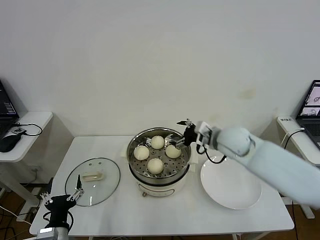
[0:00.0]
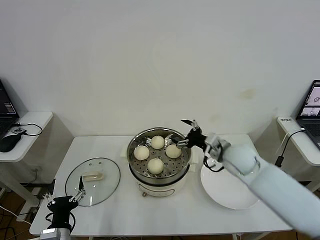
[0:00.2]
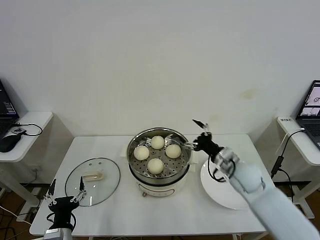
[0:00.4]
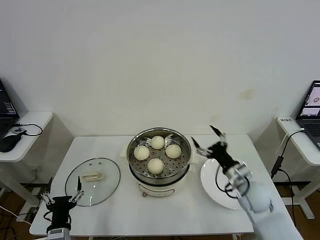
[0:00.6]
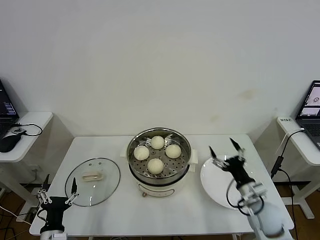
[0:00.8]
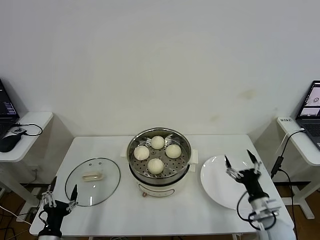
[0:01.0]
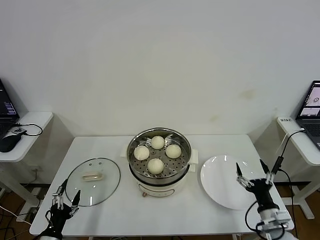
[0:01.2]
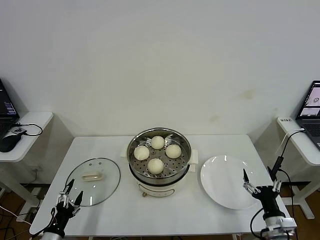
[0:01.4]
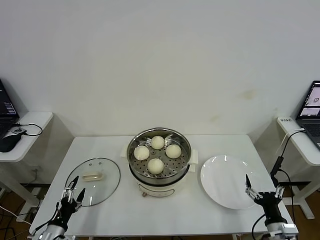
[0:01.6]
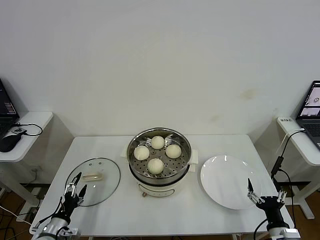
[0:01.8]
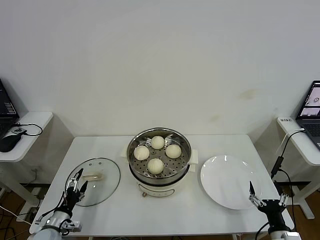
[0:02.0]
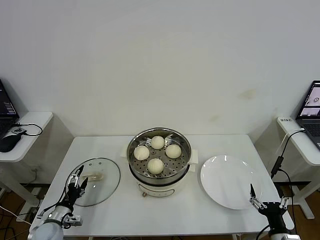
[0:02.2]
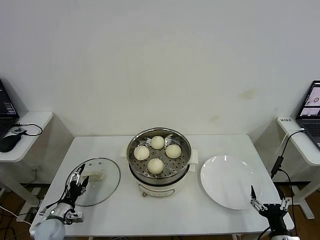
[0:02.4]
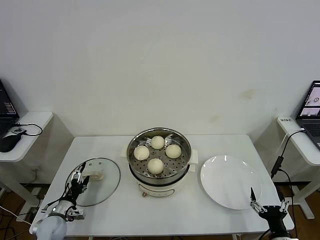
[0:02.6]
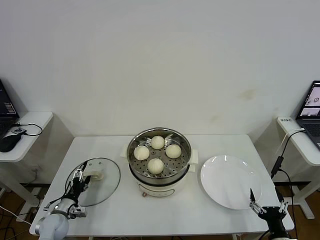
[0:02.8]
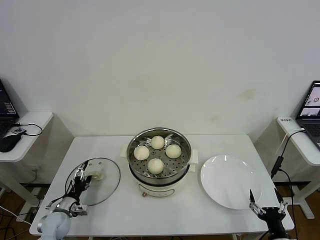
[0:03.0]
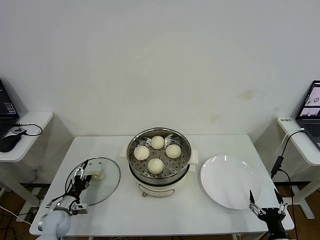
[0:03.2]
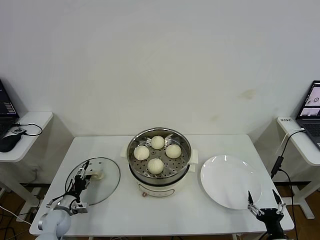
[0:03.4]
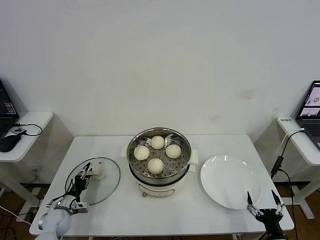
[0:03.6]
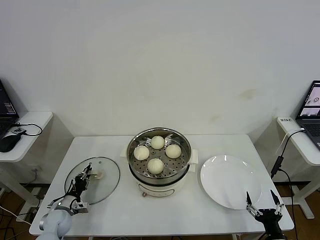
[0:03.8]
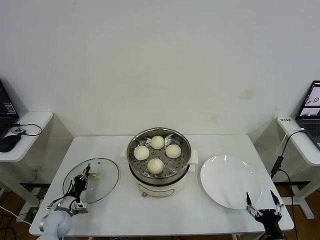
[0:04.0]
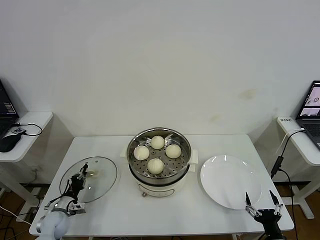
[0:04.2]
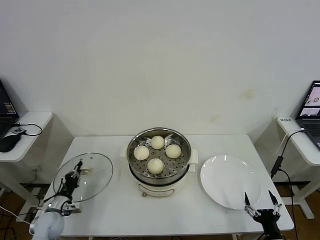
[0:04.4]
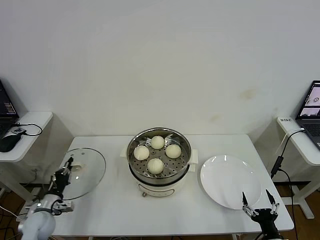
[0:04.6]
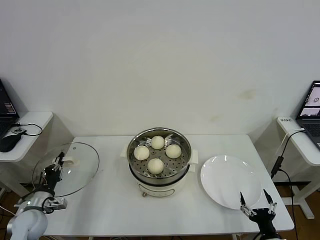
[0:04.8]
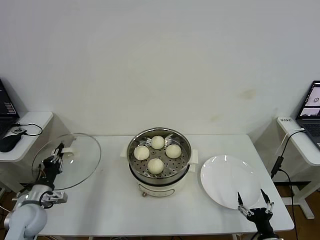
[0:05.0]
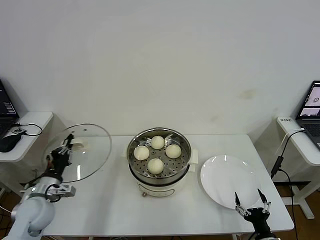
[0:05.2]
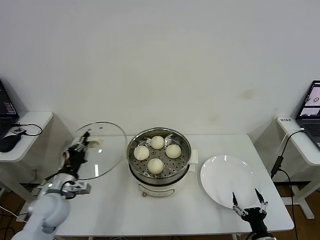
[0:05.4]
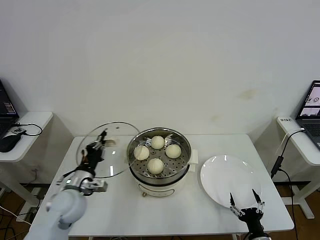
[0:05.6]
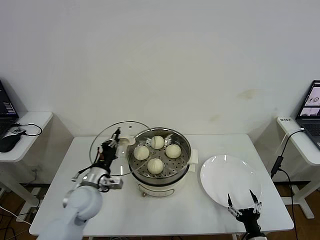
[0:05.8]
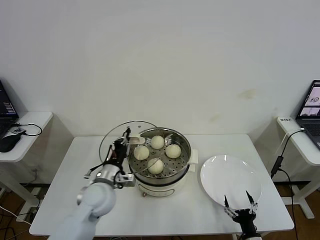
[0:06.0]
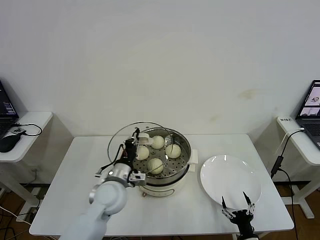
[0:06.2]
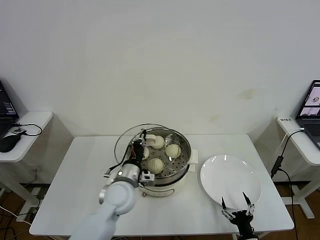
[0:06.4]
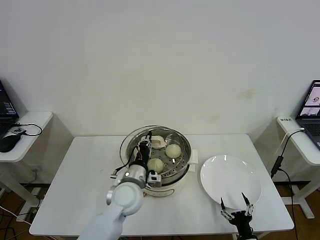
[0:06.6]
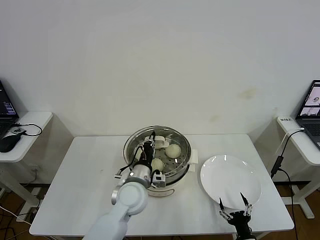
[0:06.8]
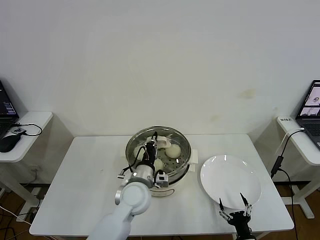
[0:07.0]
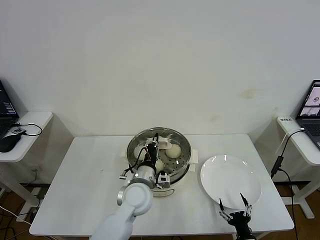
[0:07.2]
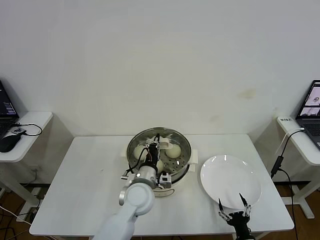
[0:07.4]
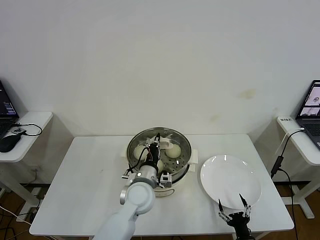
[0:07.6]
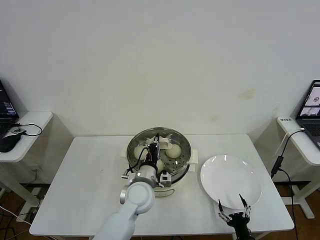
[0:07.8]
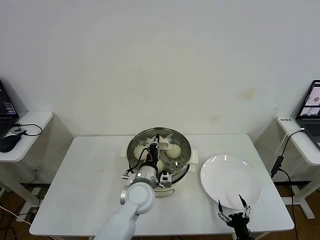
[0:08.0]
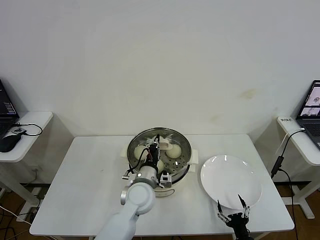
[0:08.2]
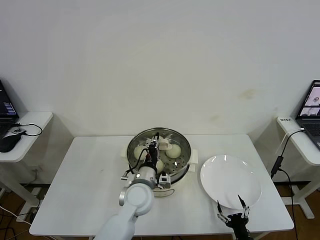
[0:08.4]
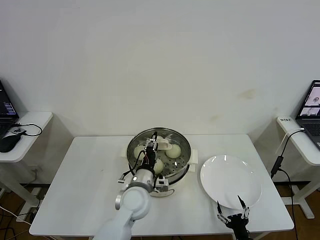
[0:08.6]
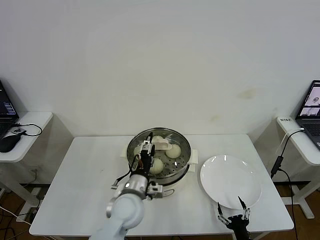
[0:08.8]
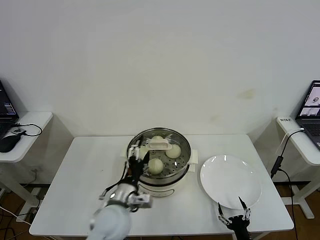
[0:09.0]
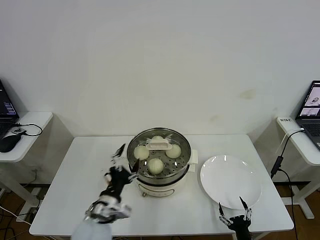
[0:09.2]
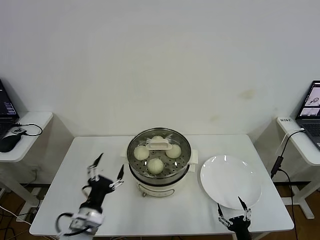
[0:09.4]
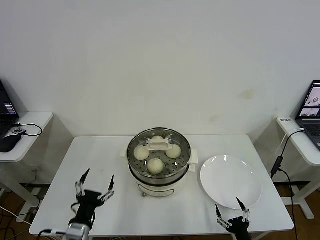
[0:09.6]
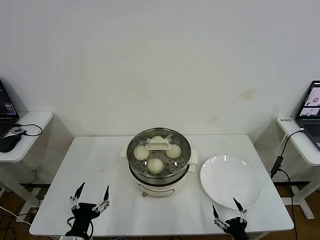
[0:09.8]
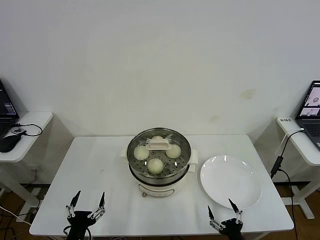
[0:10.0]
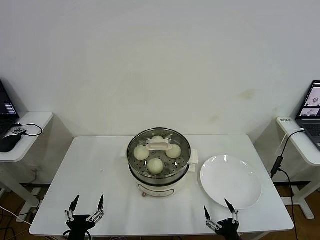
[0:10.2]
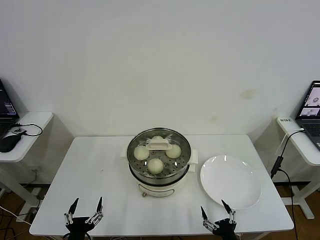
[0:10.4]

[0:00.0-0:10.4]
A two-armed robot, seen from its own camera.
Step, 0:00.0 to 0:04.0: Grasp the pot lid with left gripper.
Step, 0:04.2 to 0:08.6: Place the pot lid on the steamer with left gripper.
0:00.0 to 0:01.4: The right gripper goes about 35 cm backward, downward and to the right. Meanwhile the left gripper heads to the left and downward, covering about 10 cm.
0:01.4 to 0:03.0: The left gripper travels forward by some 15 cm. The right gripper moves backward, about 5 cm.
0:03.0 to 0:04.4: The left gripper closes.
0:04.4 to 0:06.0: The left gripper heads to the right and upward, covering some 25 cm. Meanwhile the right gripper moves roughly 5 cm.
0:06.0 to 0:07.4: The left gripper goes approximately 15 cm to the right.
0:07.4 to 0:09.0: The left gripper is displaced backward by about 5 cm, and opens its fingers.
0:09.0 to 0:10.4: The left gripper goes some 25 cm backward, to the left and downward. Meanwhile the right gripper heads upward, covering approximately 5 cm.

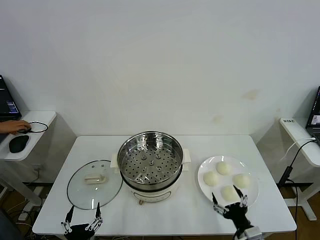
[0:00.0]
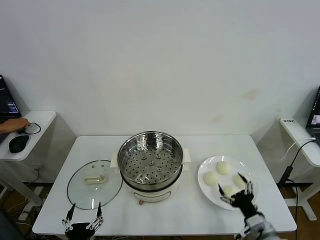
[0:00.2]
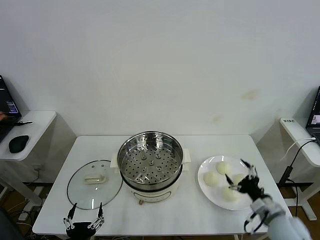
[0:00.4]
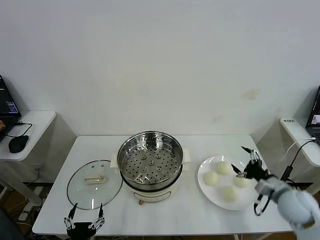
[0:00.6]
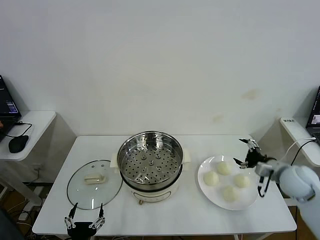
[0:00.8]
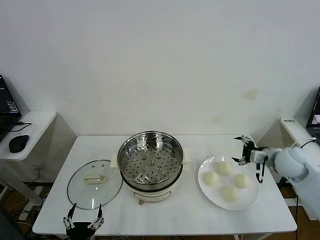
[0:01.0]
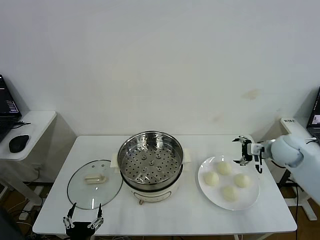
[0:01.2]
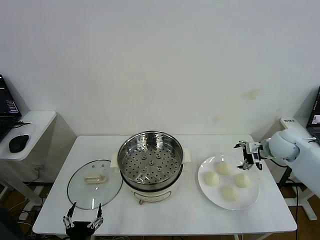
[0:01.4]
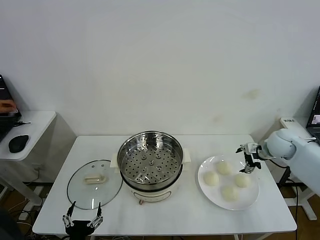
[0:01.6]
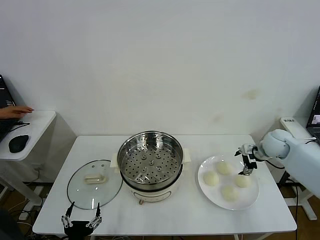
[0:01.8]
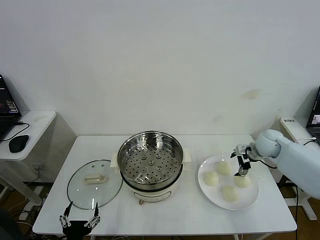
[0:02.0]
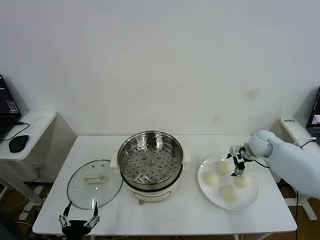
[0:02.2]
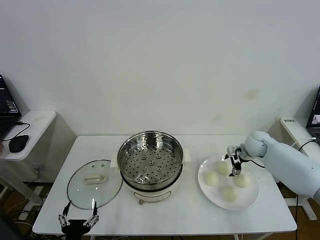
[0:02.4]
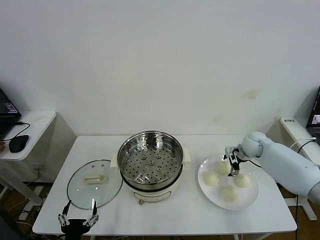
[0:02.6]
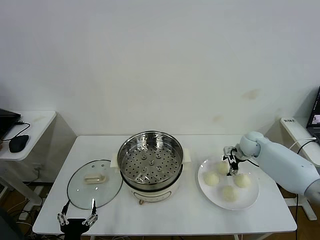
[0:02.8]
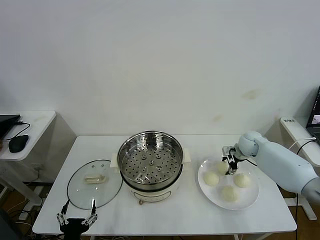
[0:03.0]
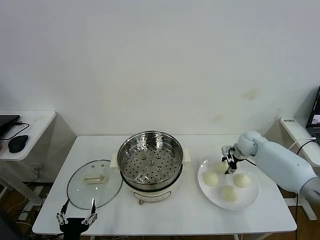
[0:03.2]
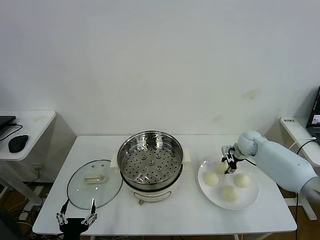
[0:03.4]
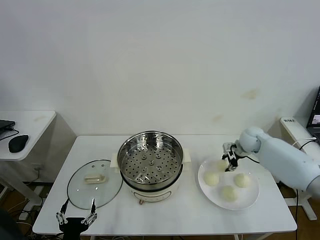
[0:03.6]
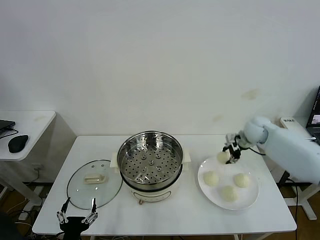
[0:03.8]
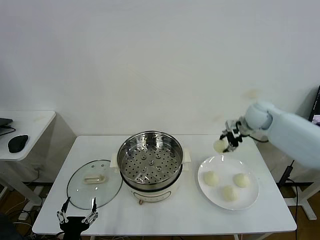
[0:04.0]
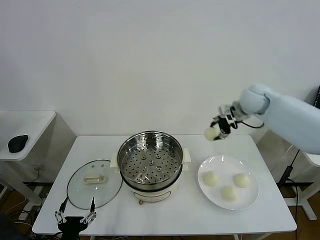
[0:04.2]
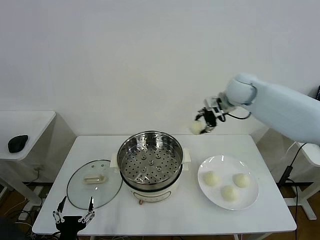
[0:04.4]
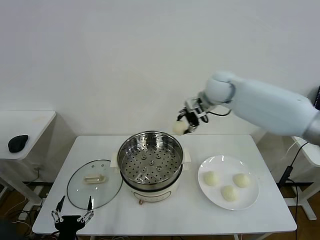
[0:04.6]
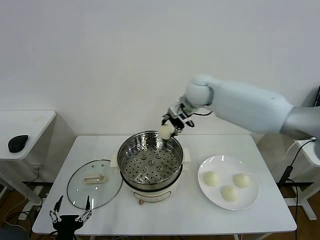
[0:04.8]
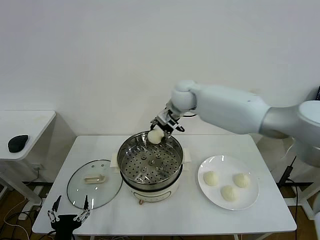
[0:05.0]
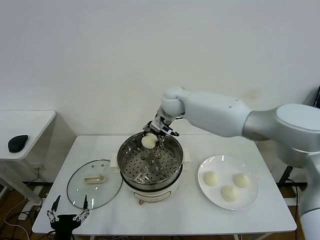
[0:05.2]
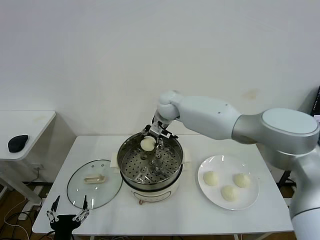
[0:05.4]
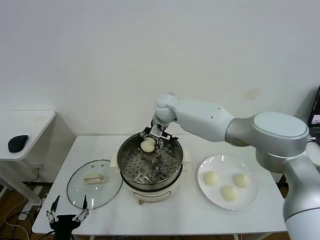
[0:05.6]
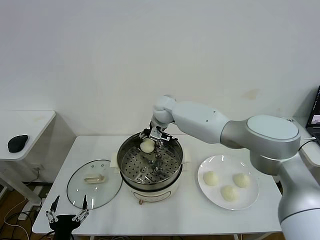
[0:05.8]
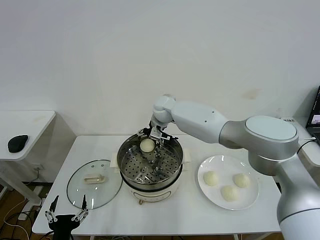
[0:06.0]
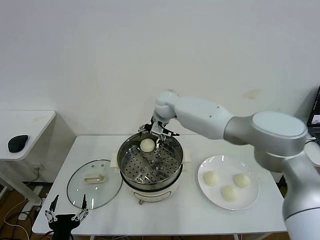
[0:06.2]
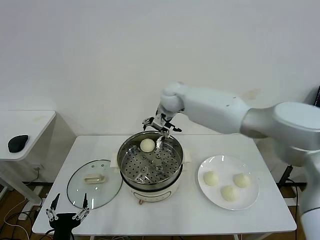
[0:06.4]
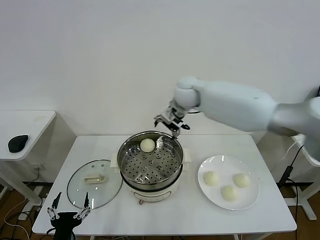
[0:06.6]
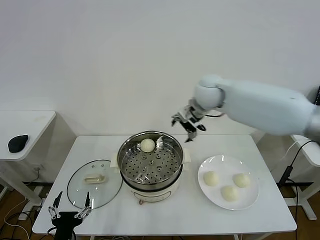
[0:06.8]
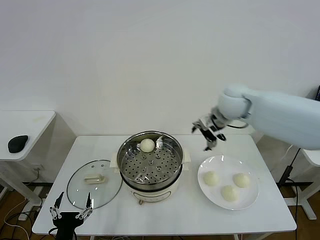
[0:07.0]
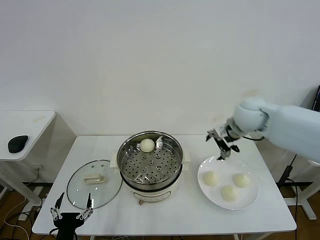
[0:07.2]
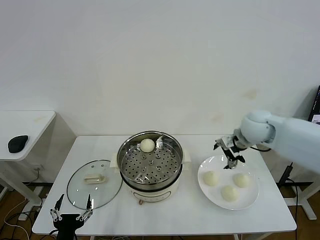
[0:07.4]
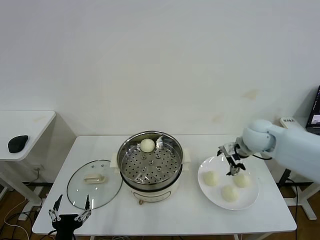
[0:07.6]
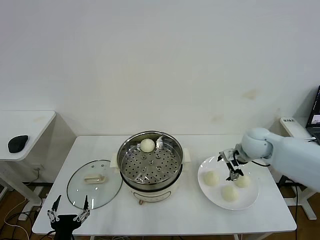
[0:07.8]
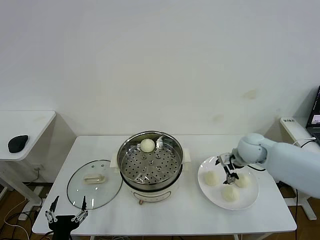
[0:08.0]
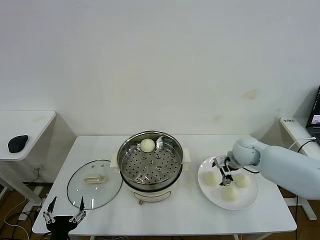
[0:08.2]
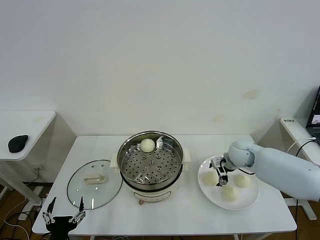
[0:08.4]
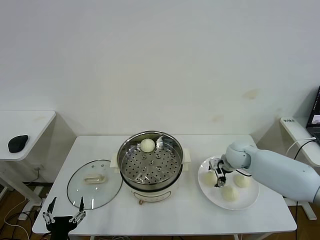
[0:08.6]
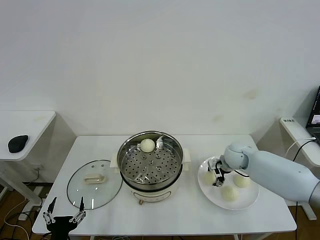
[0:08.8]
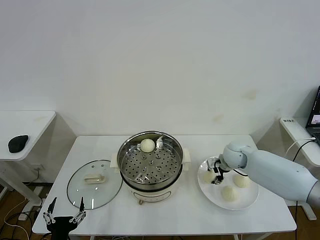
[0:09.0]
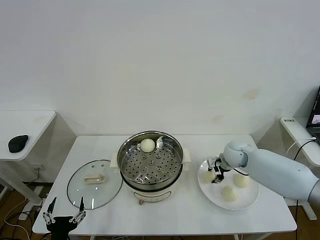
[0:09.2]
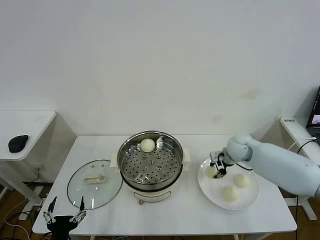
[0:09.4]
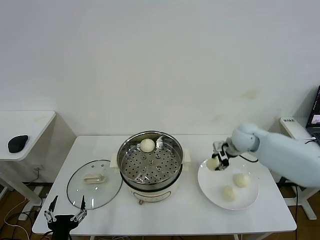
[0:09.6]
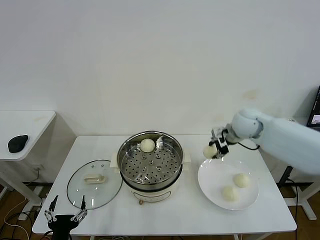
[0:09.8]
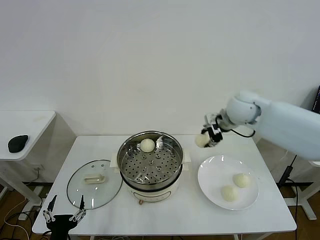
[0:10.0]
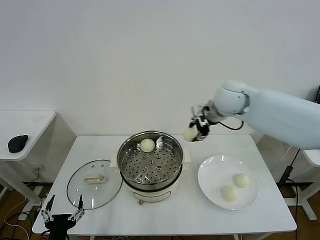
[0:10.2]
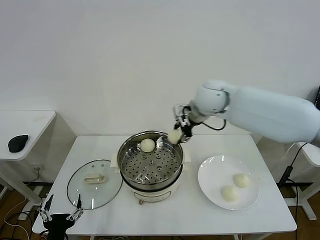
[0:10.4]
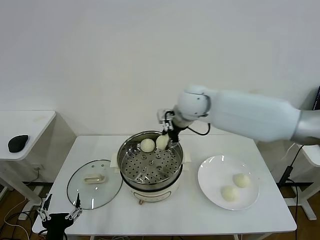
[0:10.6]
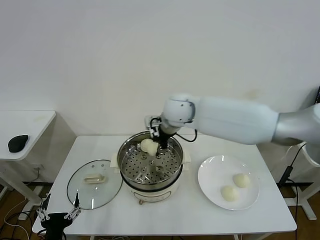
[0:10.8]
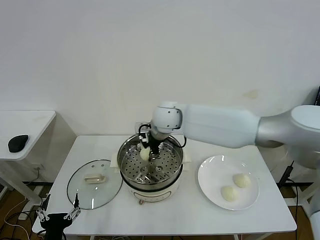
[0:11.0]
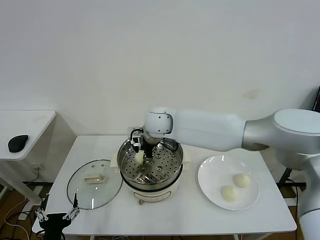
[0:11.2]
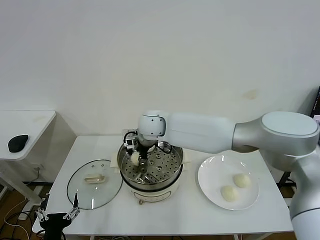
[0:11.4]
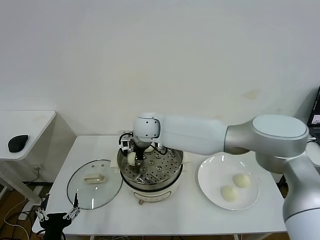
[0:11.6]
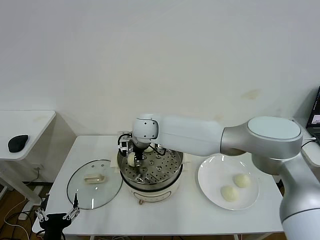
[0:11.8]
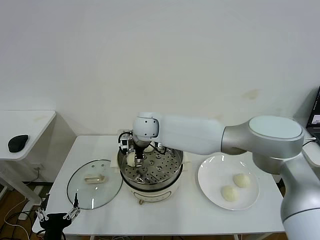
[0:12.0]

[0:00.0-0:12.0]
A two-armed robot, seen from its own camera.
Step, 0:00.0 to 0:03.2: Grasp the baozi in the plate with right gripper.
Step, 0:03.4 to 0:05.8: Place the baozi on the steamer with right gripper.
Step, 0:06.0 to 0:09.0: Grasp the baozi in the plate with right gripper.
Step, 0:09.4 to 0:12.0: Place the baozi on the steamer with right gripper.
0:01.6 to 0:03.0: The right gripper moves downward, forward and to the left, roughly 10 cm, and closes its fingers.
0:03.0 to 0:04.4: The right gripper shifts some 30 cm upward and to the left.
0:04.4 to 0:06.0: The right gripper moves to the left and downward, approximately 20 cm, and opens up.
0:06.0 to 0:07.6: The right gripper travels to the right and backward by some 35 cm.
0:07.6 to 0:09.0: The right gripper goes about 10 cm downward, and closes its fingers.
0:09.0 to 0:10.4: The right gripper is displaced upward and to the left by some 30 cm.
0:10.4 to 0:12.0: The right gripper moves to the left and downward, some 20 cm, and opens.
